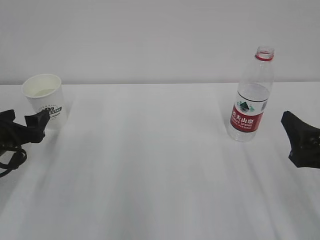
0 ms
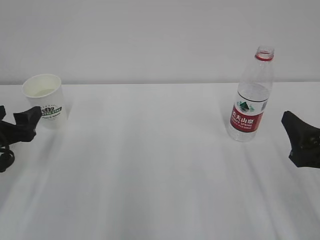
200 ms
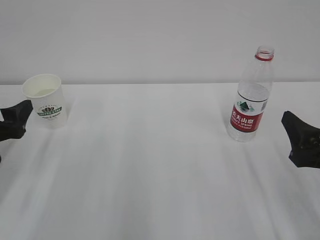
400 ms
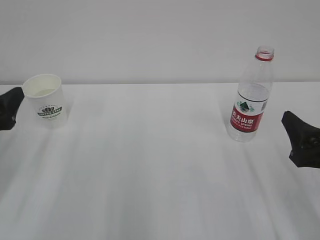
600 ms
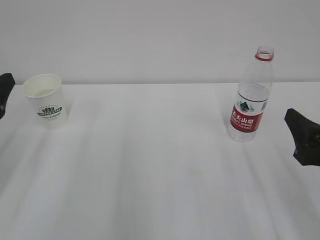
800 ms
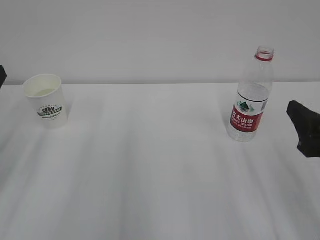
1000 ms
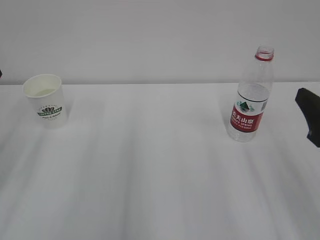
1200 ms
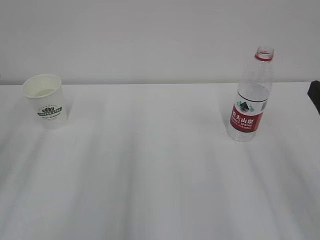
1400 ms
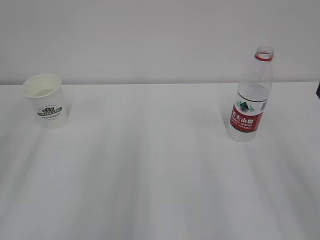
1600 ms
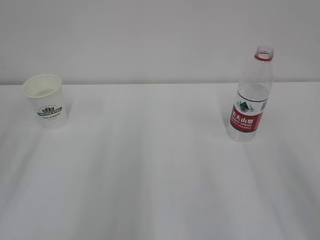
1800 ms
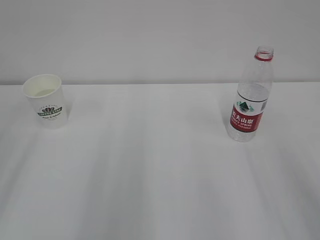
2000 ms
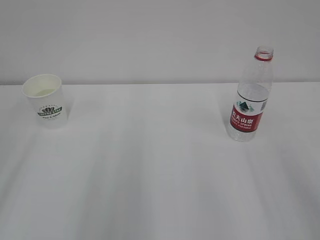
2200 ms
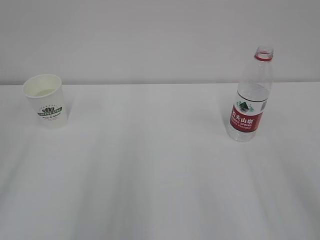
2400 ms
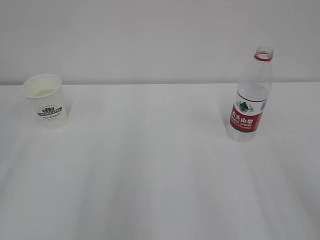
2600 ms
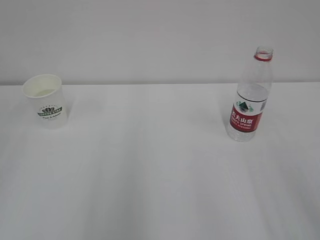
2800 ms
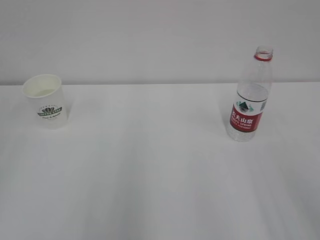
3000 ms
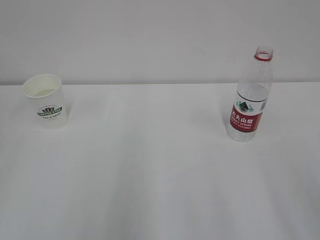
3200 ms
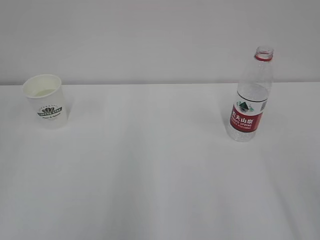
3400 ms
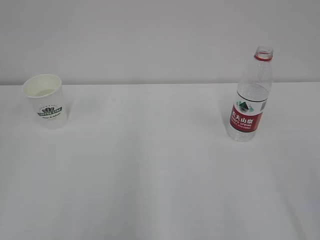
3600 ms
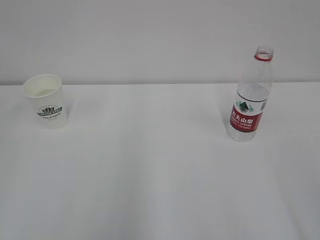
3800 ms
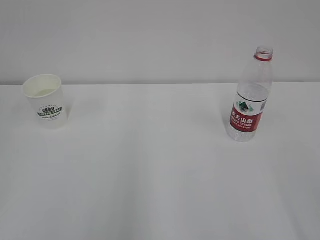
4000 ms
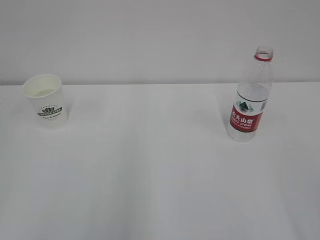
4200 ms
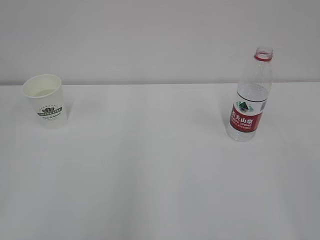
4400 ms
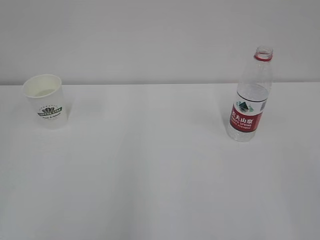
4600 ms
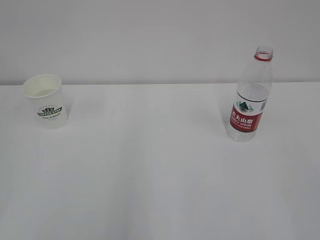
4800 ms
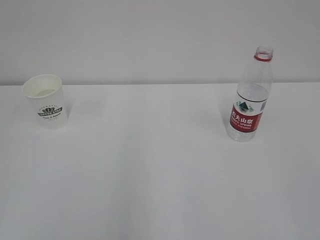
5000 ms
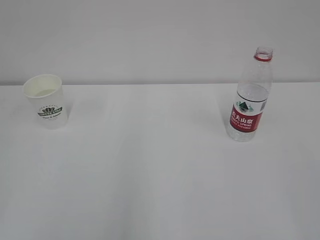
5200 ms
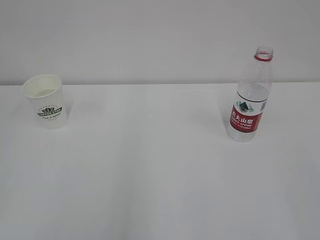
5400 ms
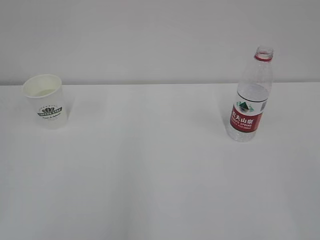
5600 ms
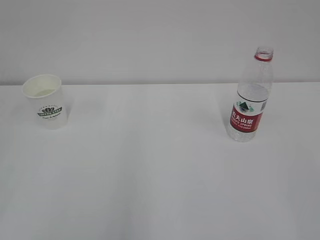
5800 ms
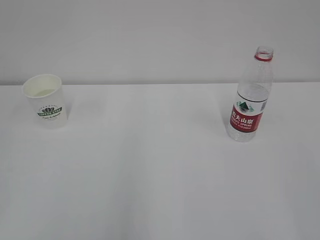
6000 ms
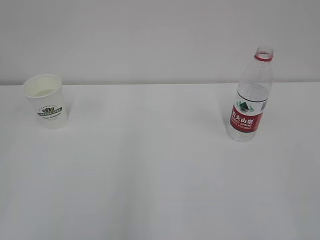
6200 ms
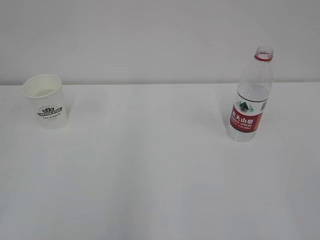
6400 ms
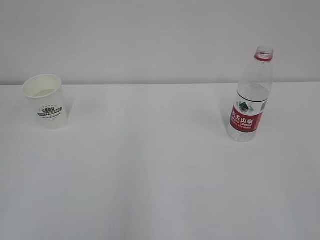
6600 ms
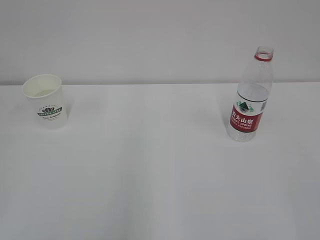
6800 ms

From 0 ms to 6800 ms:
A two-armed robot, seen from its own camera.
From 0 ms to 1400 ms: The left gripper heads upward and backward, covering approximately 15 cm. Meanwhile the right gripper shifts approximately 5 cm upward.
From 5400 ms to 6800 ms: Neither gripper changes place.

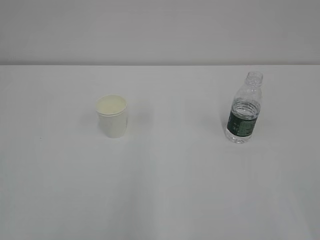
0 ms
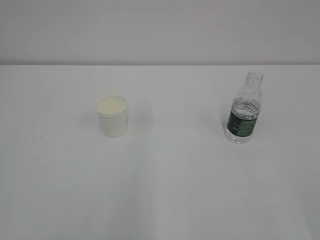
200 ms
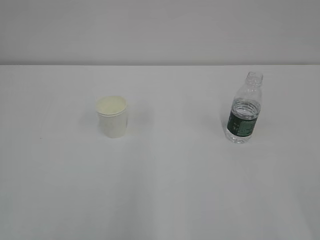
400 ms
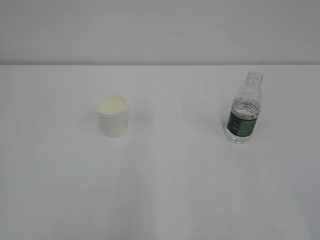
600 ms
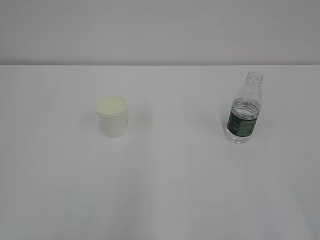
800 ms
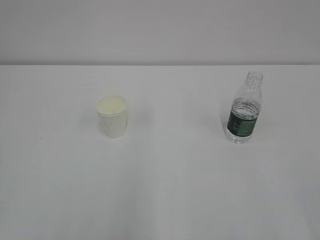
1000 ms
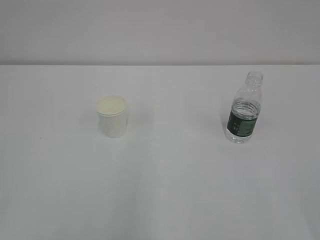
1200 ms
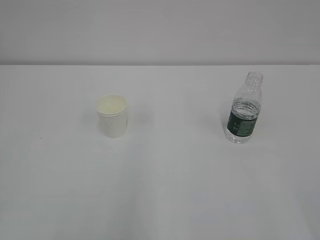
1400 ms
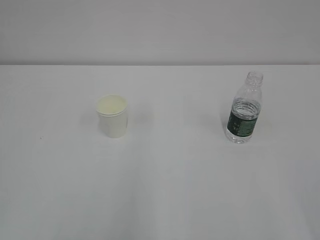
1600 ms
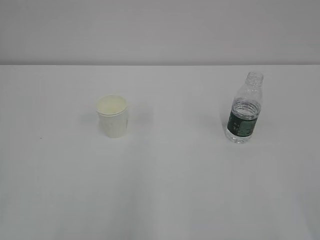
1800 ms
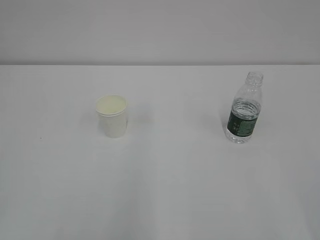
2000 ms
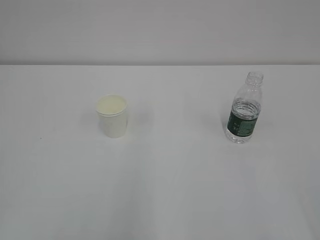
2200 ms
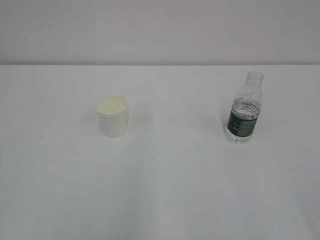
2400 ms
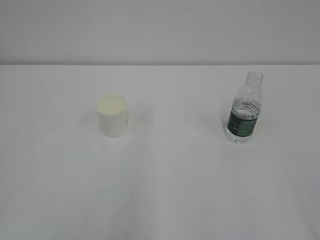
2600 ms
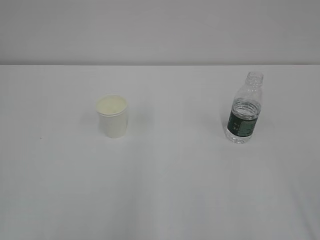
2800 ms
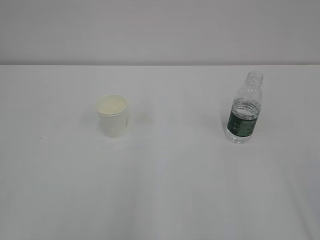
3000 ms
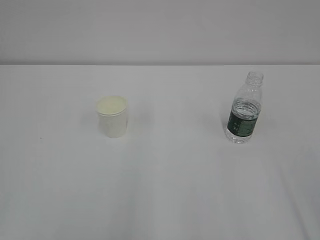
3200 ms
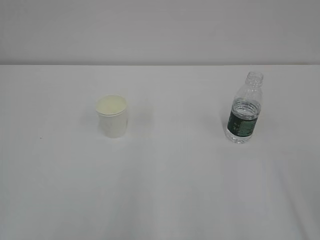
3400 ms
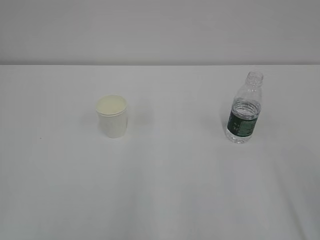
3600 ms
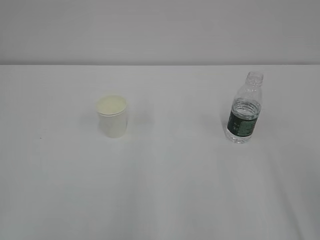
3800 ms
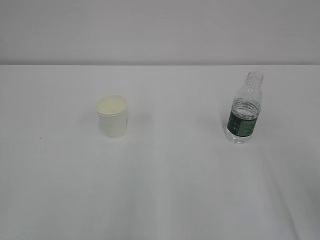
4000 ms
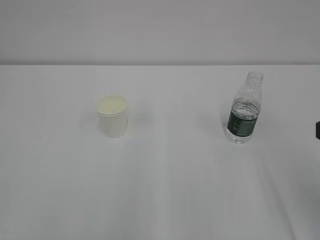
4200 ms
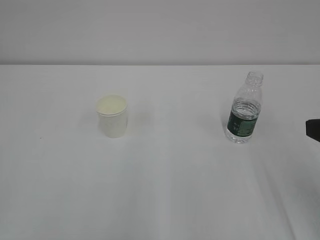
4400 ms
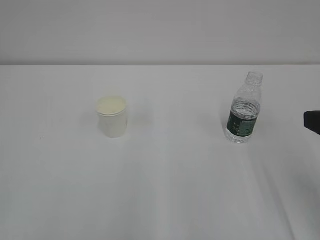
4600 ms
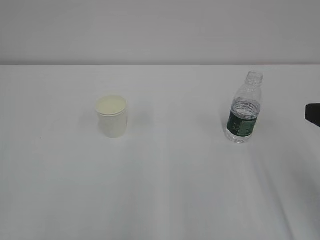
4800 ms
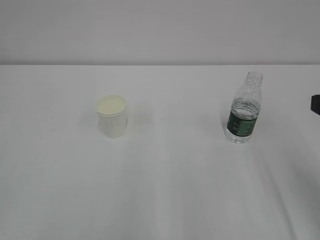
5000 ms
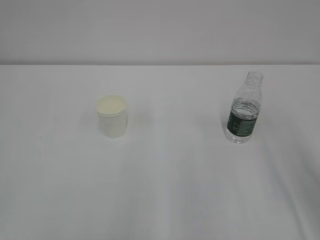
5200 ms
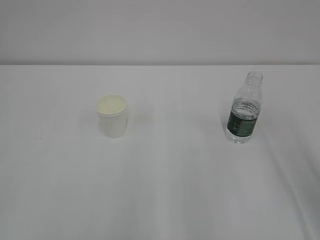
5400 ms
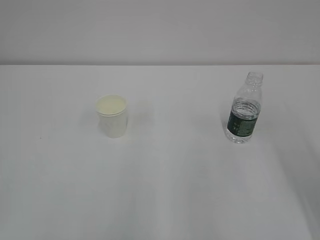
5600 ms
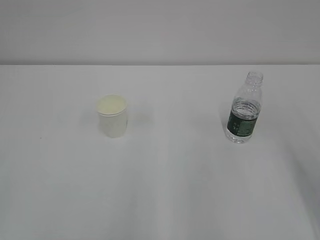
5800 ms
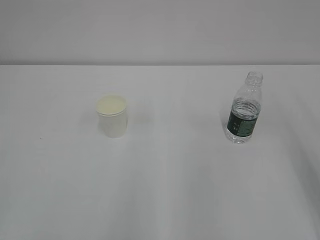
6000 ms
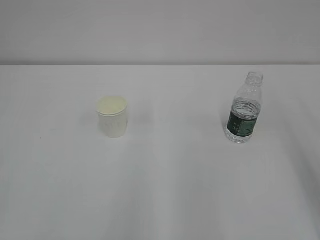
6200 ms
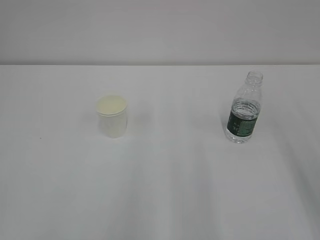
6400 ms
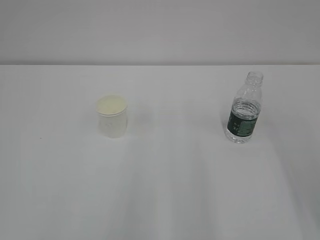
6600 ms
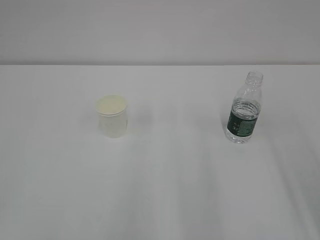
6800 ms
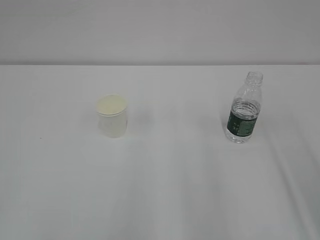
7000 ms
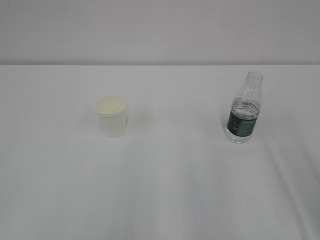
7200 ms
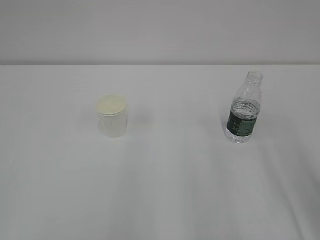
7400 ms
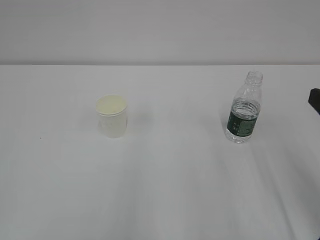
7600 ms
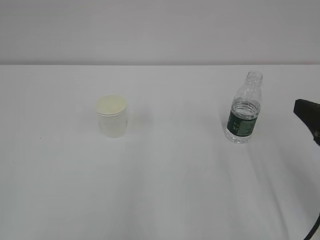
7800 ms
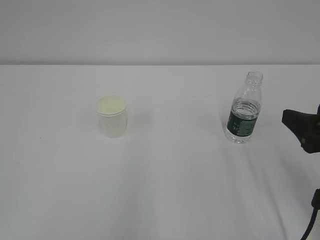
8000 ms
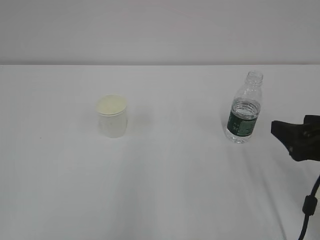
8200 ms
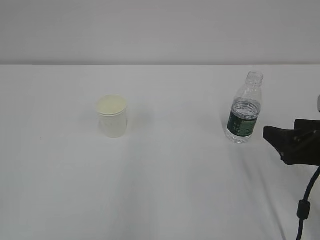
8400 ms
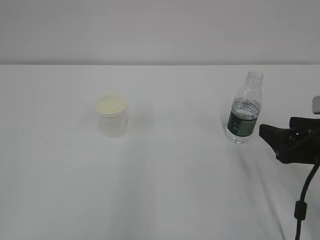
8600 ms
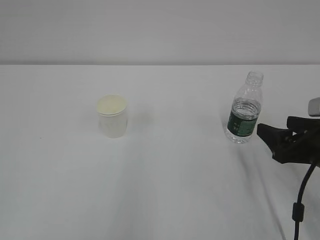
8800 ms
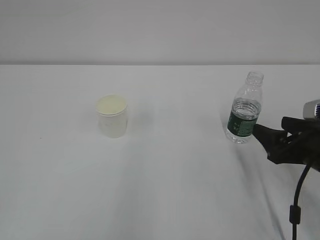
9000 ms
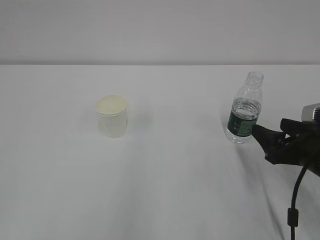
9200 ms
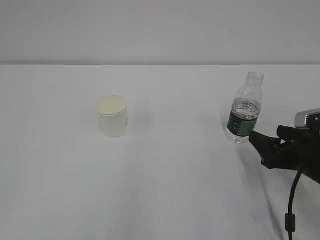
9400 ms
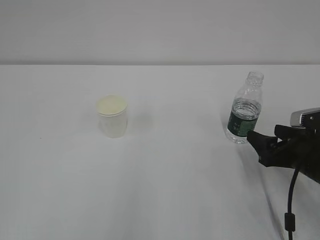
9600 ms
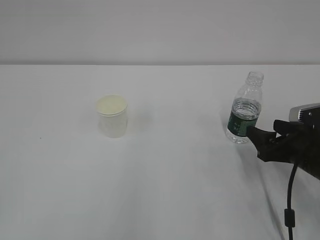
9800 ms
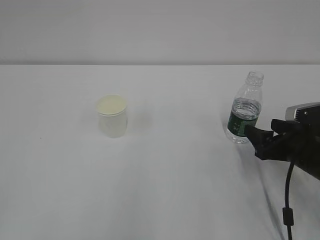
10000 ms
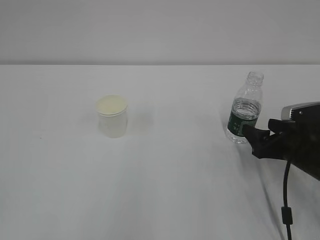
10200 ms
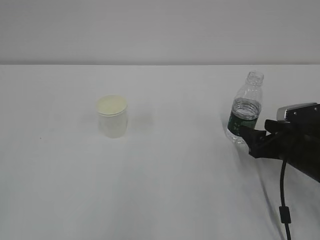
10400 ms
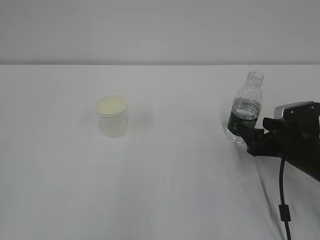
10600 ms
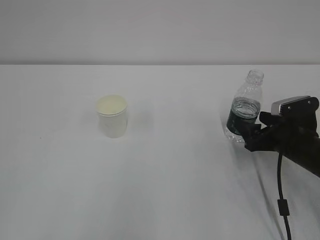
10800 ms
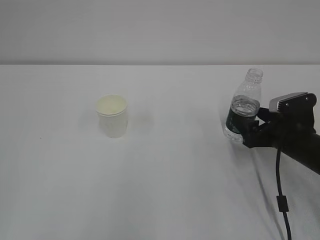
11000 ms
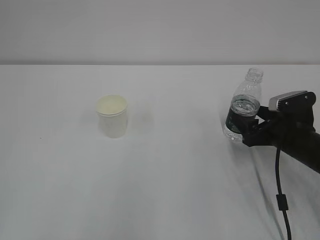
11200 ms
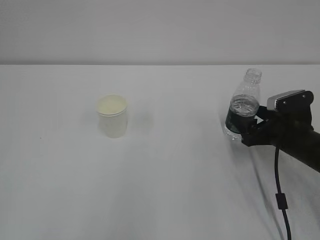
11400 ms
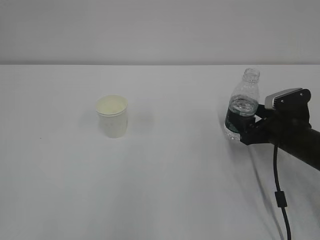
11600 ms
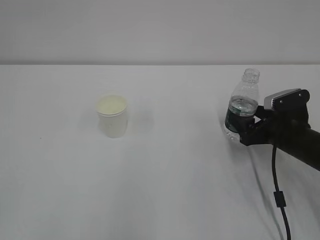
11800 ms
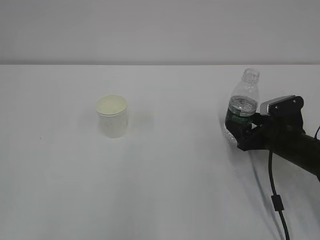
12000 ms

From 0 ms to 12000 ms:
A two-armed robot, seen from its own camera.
From 7600 ms to 9000 ms: The right gripper moves downward and forward, about 15 cm.
From 9000 ms to 10400 ms: The right gripper travels downward and forward by some 10 cm.
From 10400 ms to 12000 ms: The grippers stay close to where they were, moving slightly.

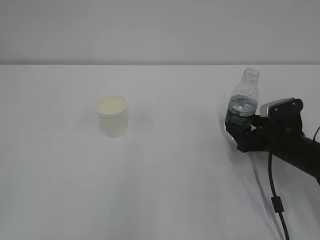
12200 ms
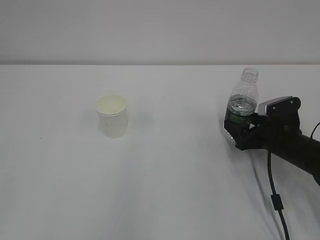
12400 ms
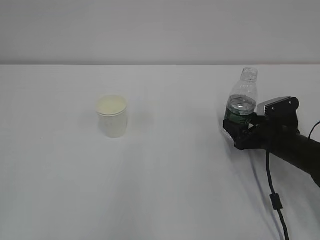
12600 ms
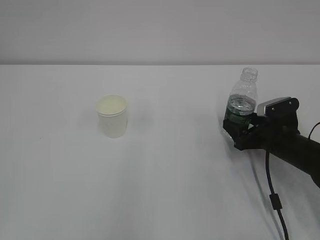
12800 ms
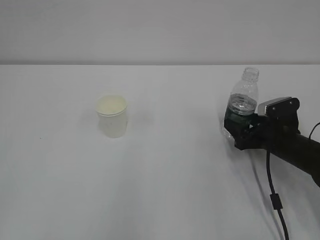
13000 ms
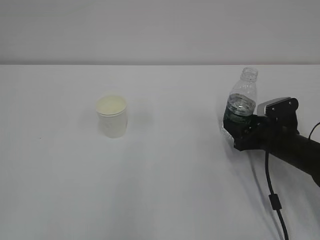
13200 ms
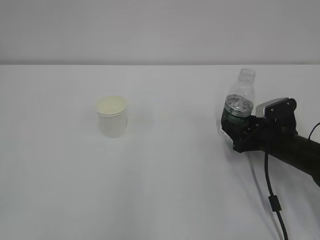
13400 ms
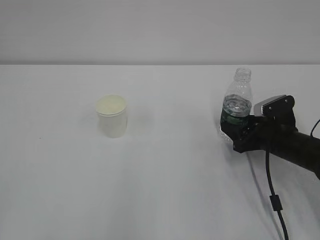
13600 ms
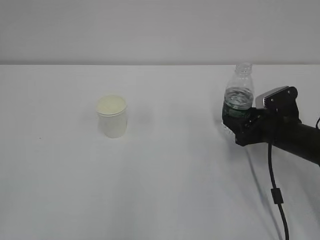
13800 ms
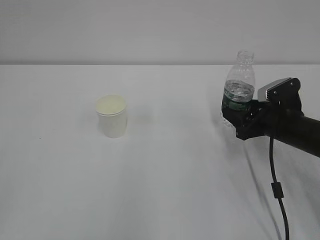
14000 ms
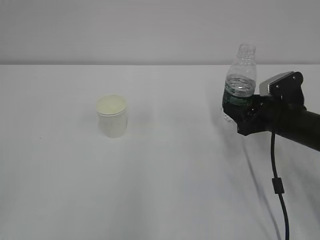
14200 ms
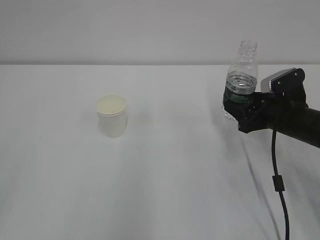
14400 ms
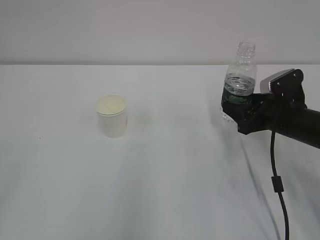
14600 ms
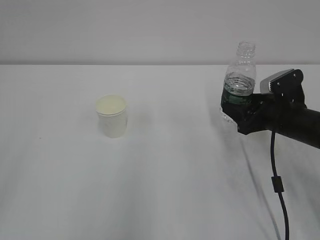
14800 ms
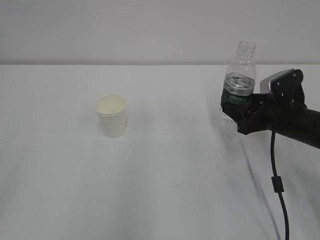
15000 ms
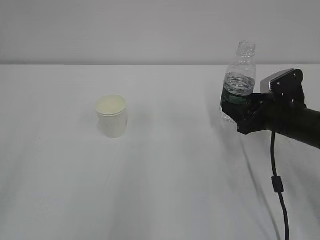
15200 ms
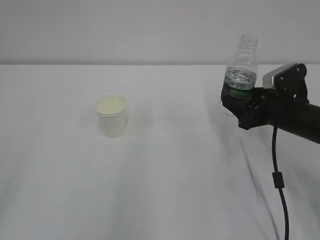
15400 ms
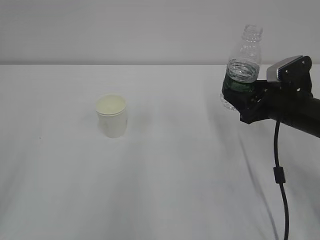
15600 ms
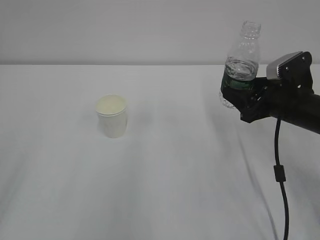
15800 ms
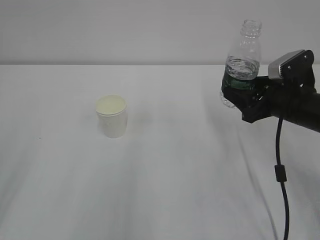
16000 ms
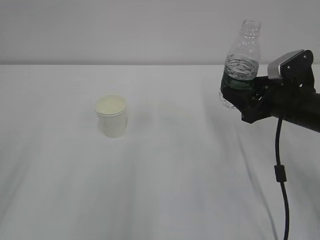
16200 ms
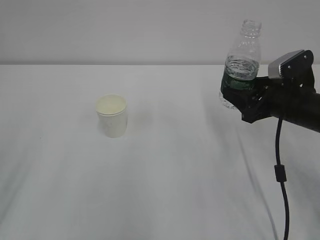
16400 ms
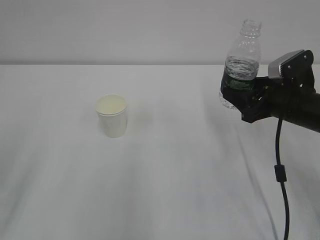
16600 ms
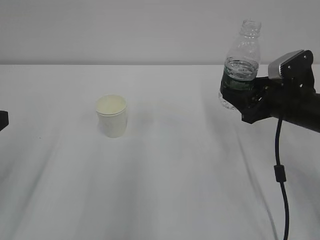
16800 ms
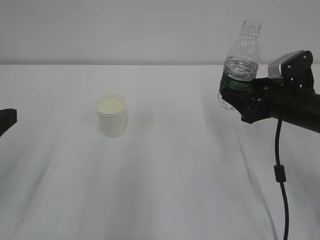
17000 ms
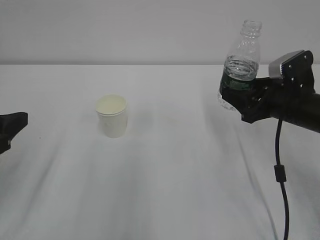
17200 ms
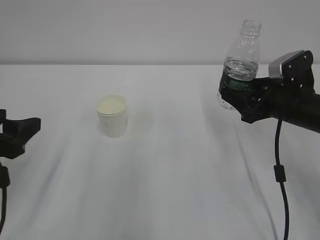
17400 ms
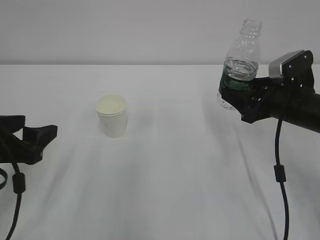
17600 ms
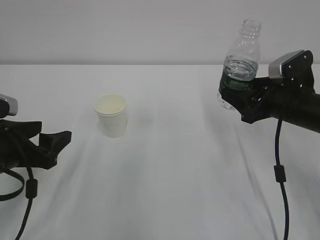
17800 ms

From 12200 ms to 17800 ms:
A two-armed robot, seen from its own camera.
From 12200 ms to 13600 ms: The right gripper closes.
From 13600 ms to 15000 ms: The right gripper travels upward by about 5 cm.
From 16400 ms to 17800 ms: The left gripper goes roughly 15 cm downward, forward and to the right.
